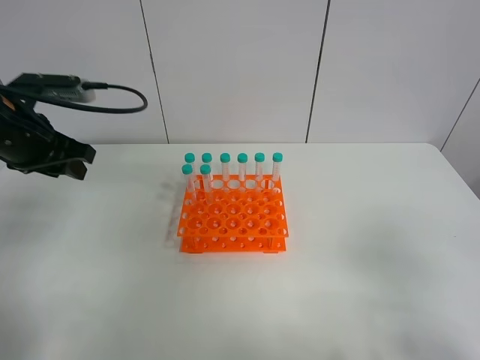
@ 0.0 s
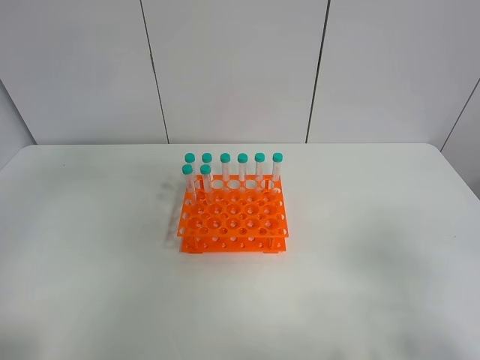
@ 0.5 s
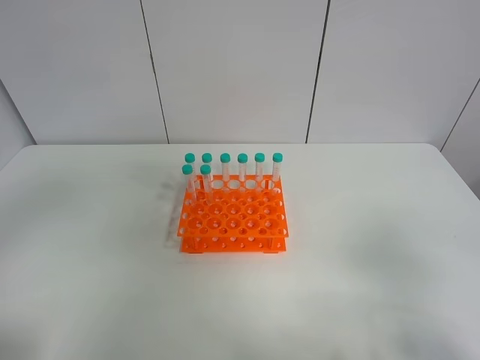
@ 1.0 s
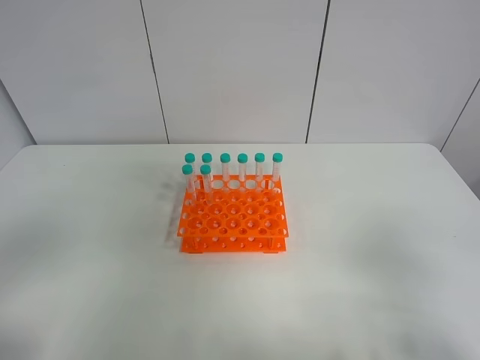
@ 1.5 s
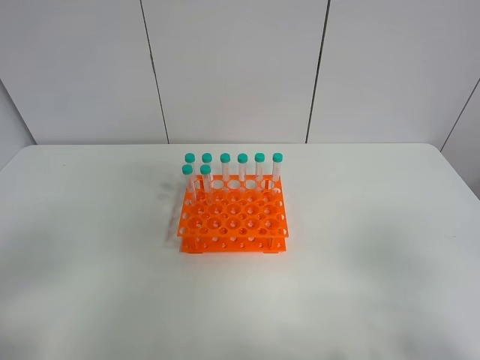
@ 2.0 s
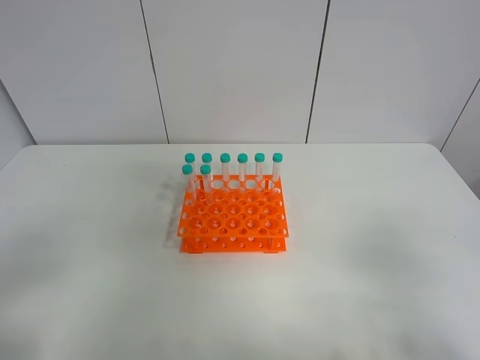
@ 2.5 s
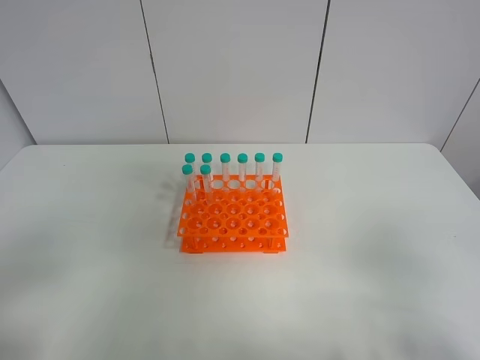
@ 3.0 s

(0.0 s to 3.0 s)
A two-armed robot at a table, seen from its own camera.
Task of the whole recording: Put the test tube on the table back onto the test tube rack.
0.0 s - 1.5 s: The left gripper is displaced backward by some 30 cm.
